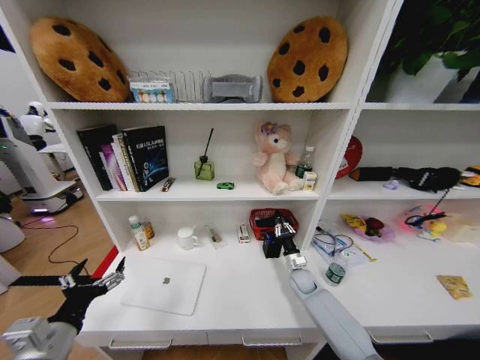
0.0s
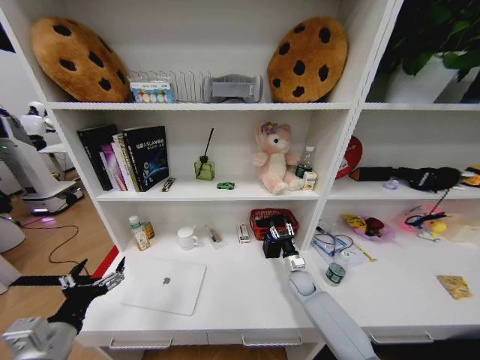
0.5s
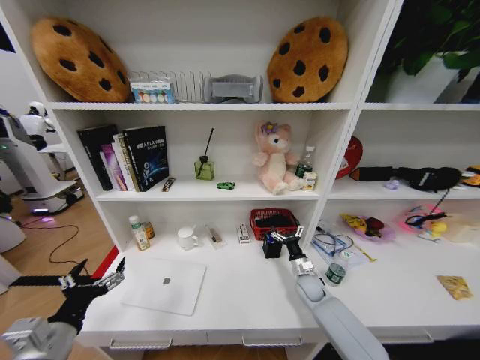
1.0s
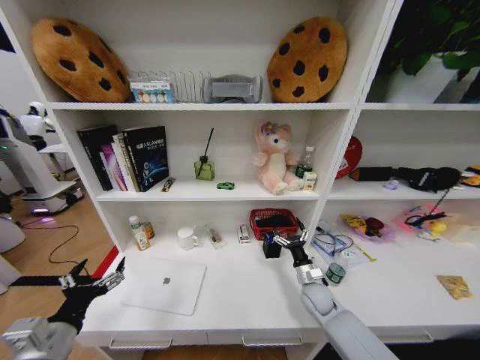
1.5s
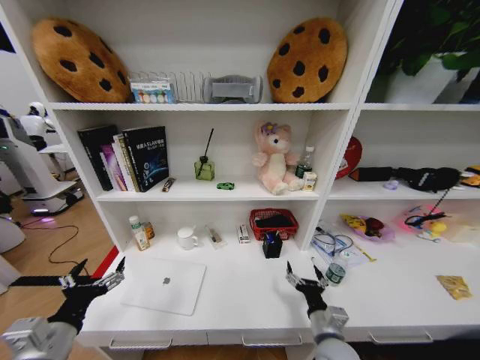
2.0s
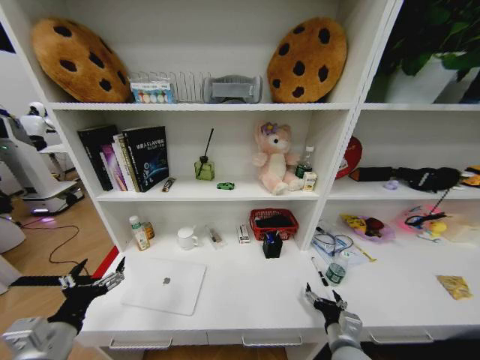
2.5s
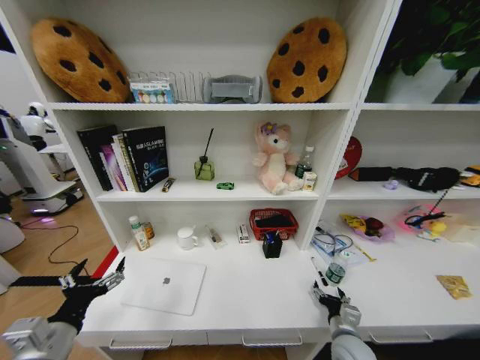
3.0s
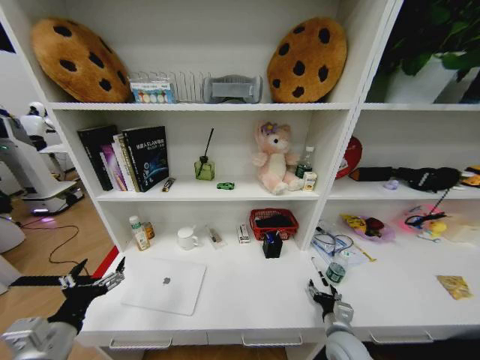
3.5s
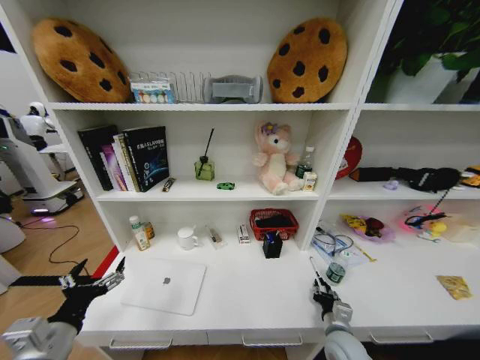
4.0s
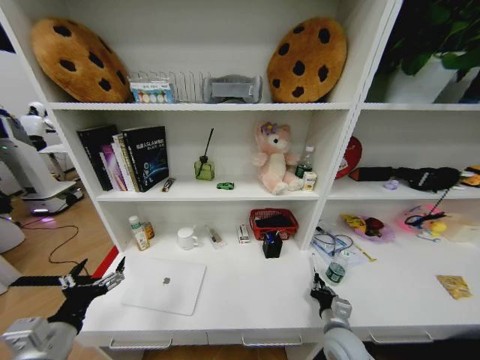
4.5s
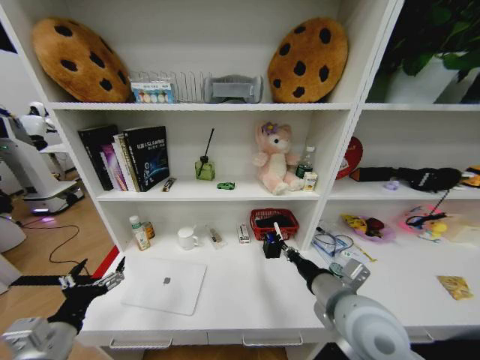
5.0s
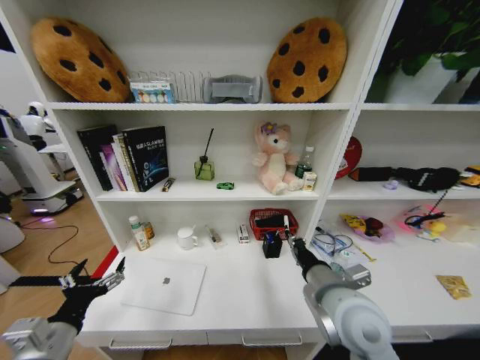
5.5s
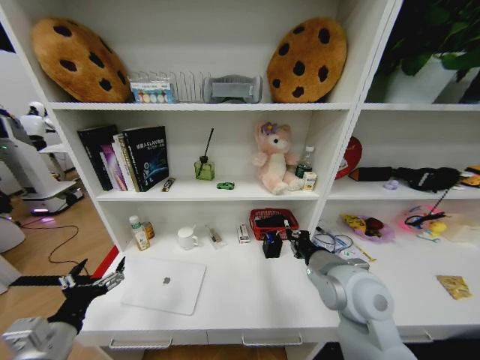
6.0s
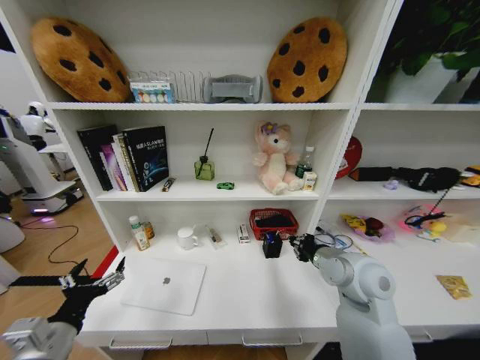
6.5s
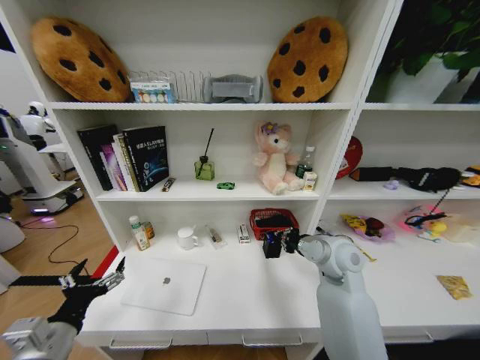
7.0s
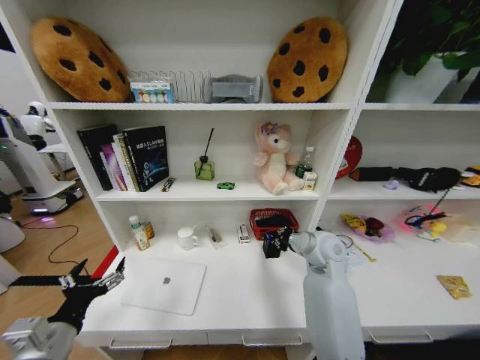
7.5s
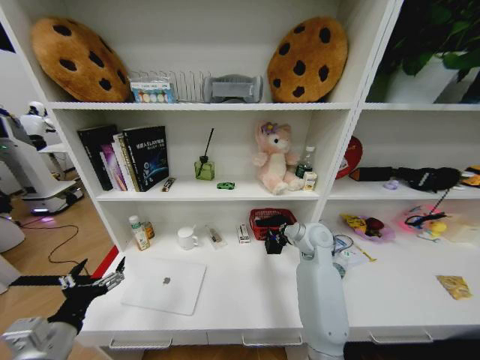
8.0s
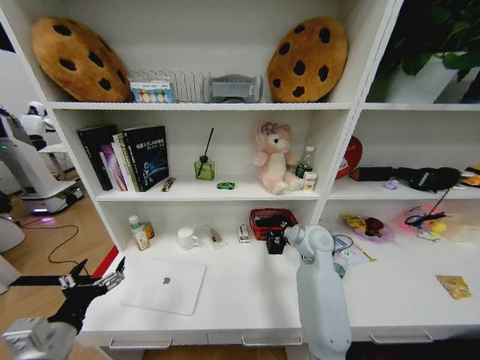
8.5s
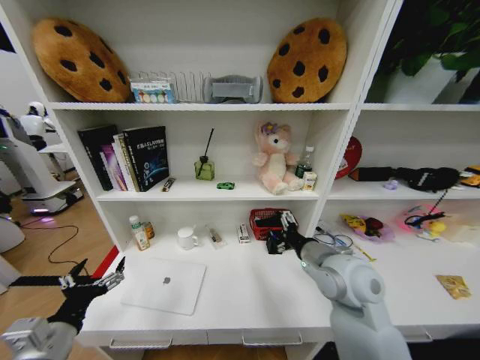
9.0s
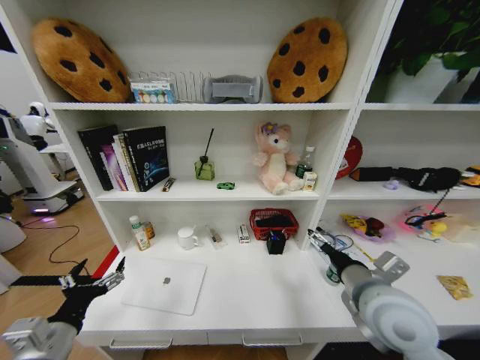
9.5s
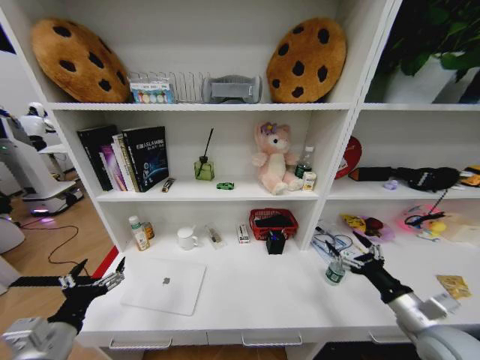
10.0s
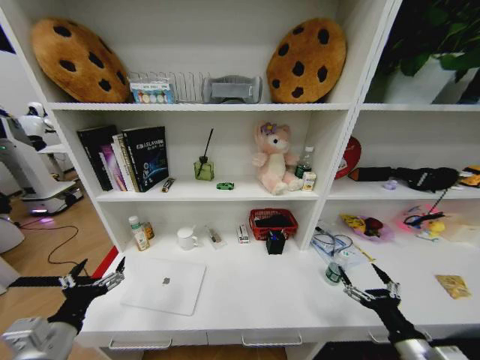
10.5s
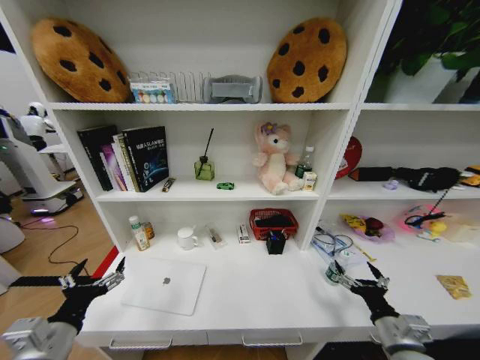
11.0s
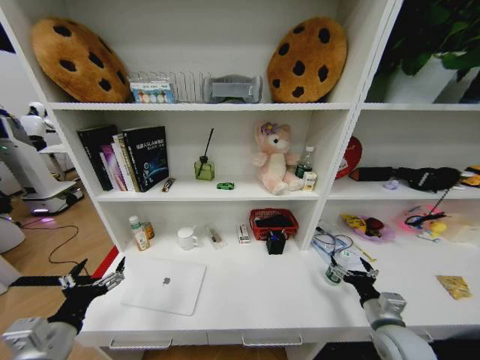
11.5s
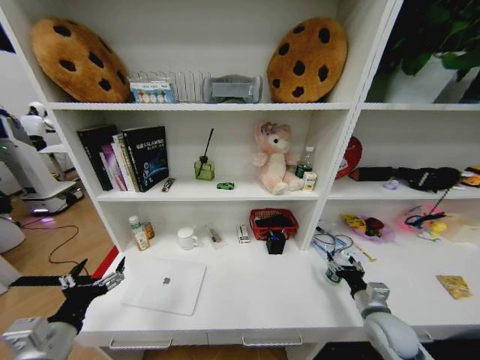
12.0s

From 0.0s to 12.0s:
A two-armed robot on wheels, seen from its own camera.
Task of the whole recording: Organize the objects on the table.
From 0.0s to 2.0s: The right gripper goes approximately 25 cm backward, and opens its fingers.
From 2.0s to 4.0s: The right gripper heads to the right and downward, covering approximately 10 cm, and closes its fingers.
From 4.0s to 6.0s: The right gripper shifts about 25 cm upward.
From 6.0s to 8.0s: The right gripper is displaced forward by about 15 cm.
From 8.0s to 10.0s: The right gripper heads backward and to the right, covering about 30 cm, and opens.
From 10.0s to 12.0s: The right gripper moves downward and forward, some 10 cm.

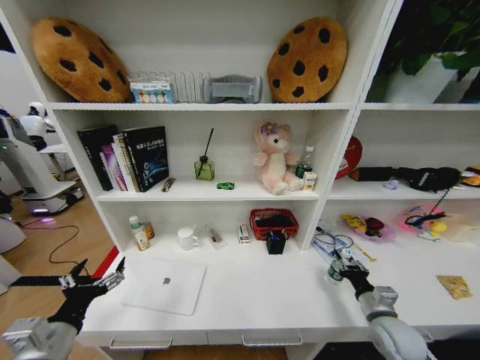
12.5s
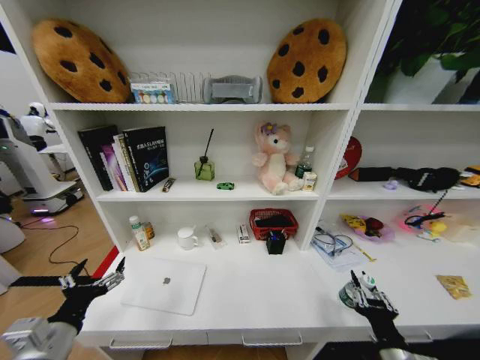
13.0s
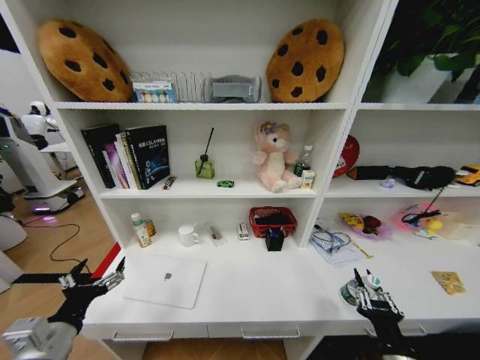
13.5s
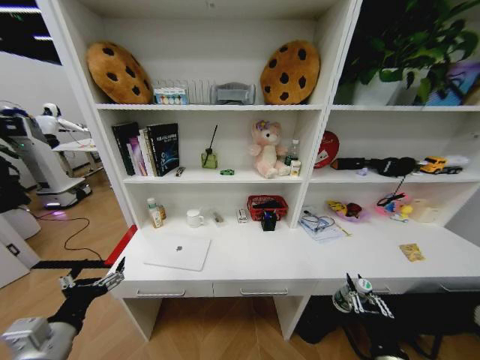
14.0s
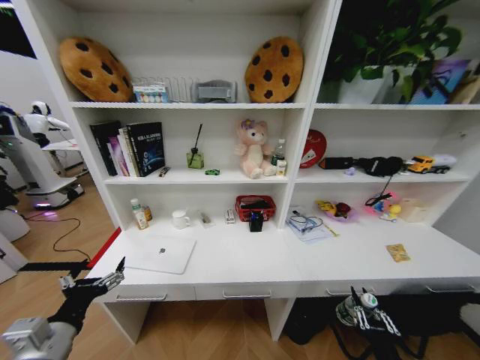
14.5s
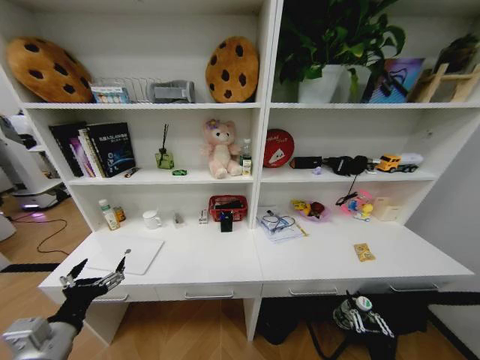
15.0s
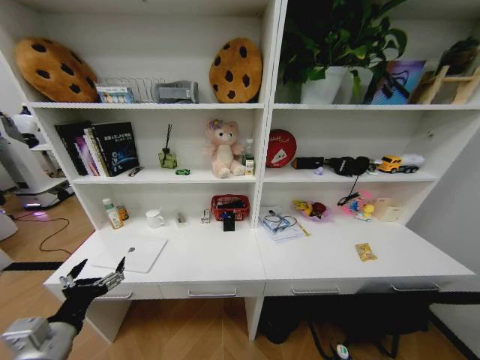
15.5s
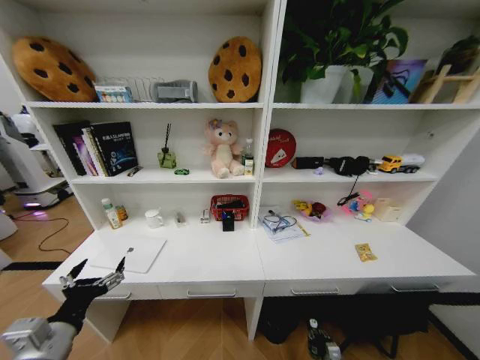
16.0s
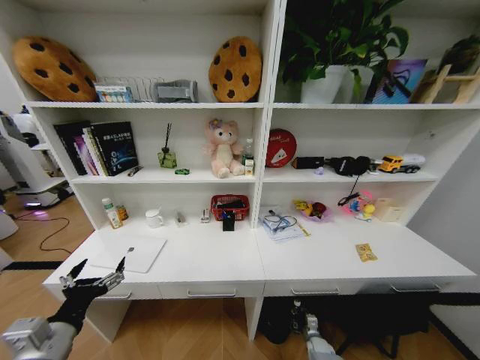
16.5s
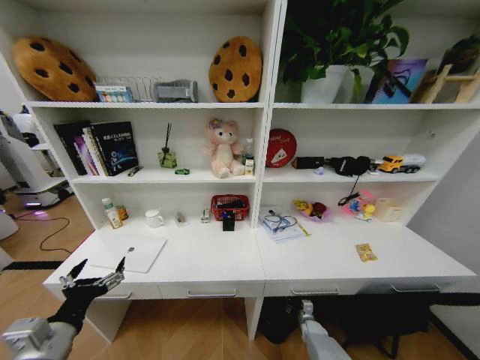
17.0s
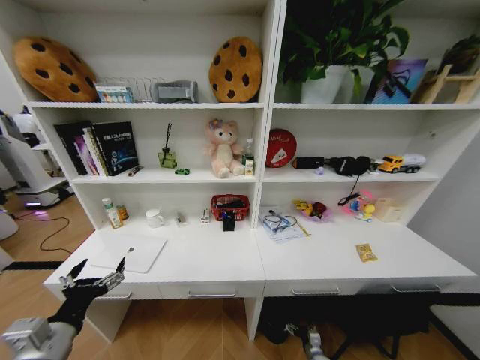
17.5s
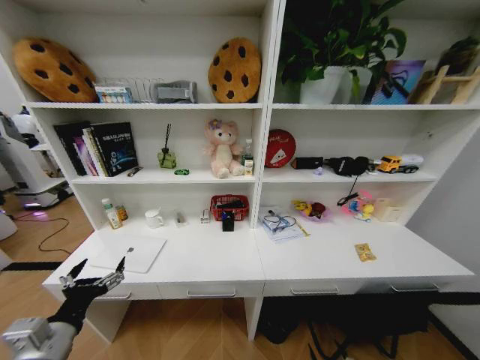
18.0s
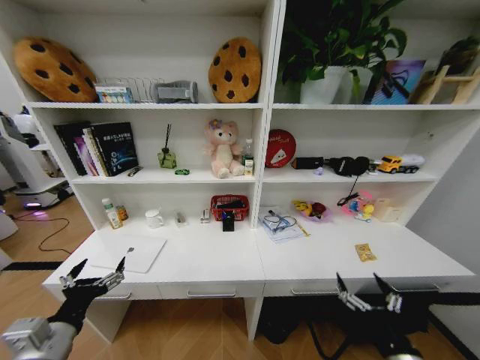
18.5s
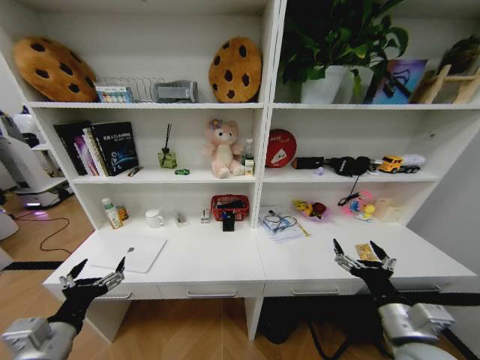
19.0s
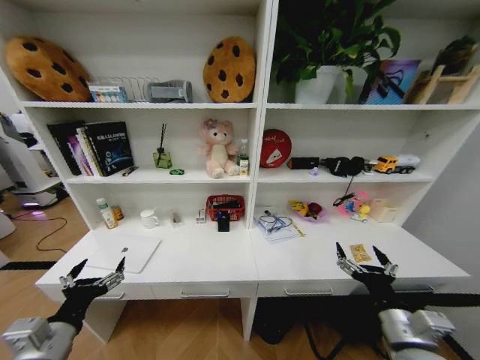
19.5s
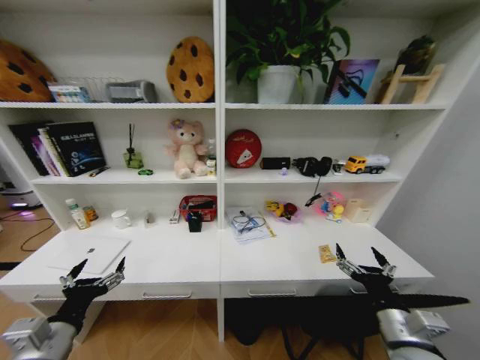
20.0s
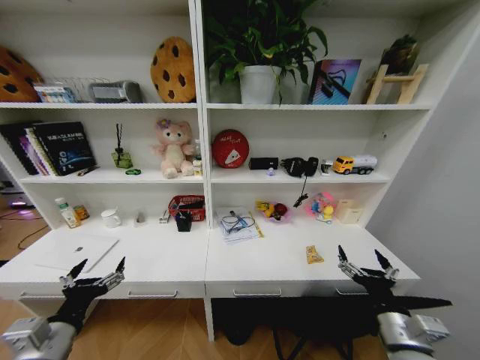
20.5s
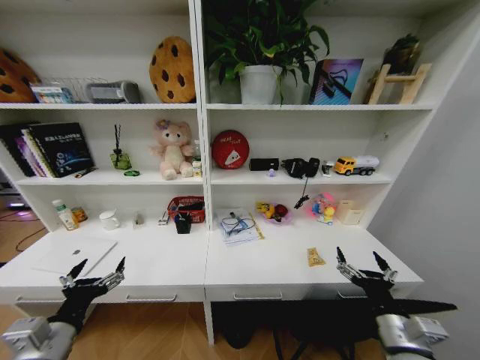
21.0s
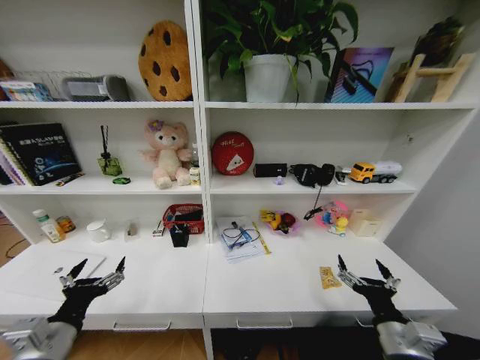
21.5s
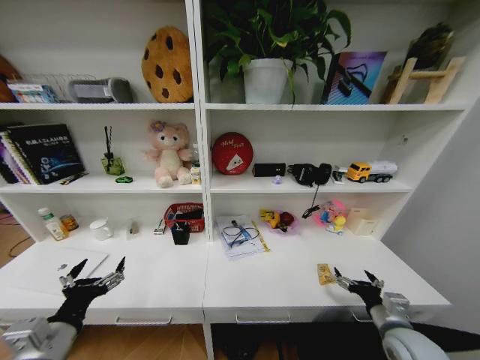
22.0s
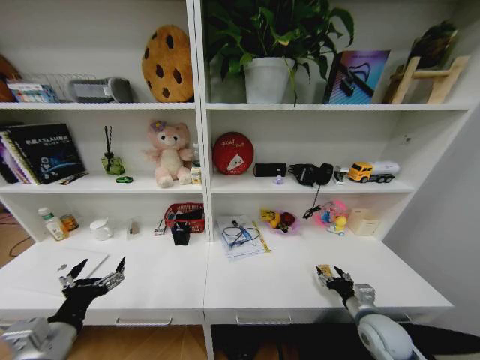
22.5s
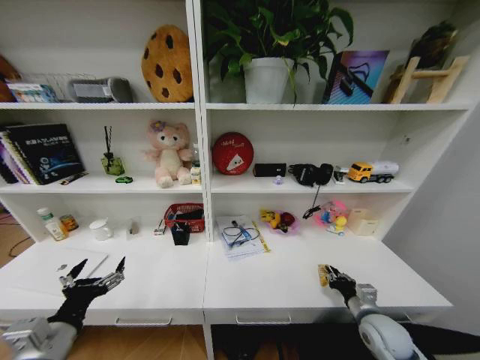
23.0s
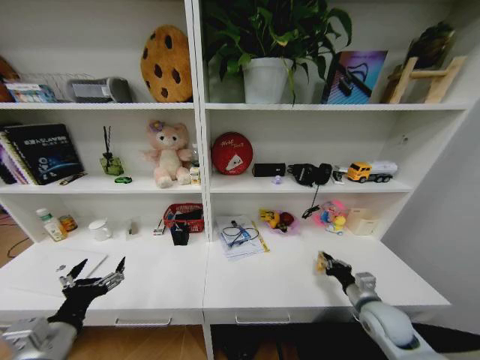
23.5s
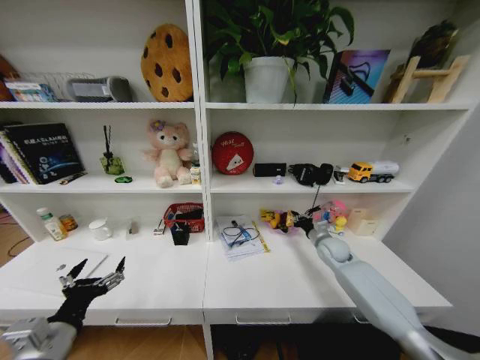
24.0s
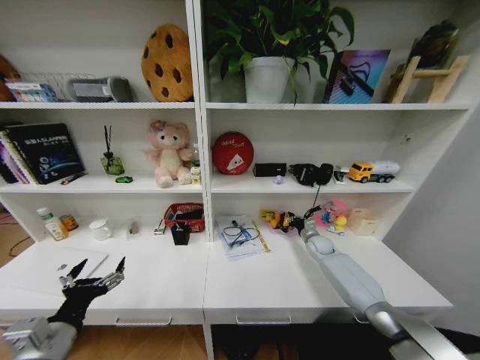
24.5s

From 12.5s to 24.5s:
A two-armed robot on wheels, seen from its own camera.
Task of the whole recording: Organize the objects on the table.
From 12.5s to 14.5s: The right gripper is displaced backward and to the left by about 20 cm.
From 14.5s to 16.5s: The right gripper is displaced downward and forward by roughly 40 cm.
From 16.5s to 18.5s: The right gripper moves upward and backward, roughly 40 cm, and opens its fingers.
From 18.5s to 20.5s: The right gripper travels forward by approximately 5 cm.
From 20.5s to 22.5s: The right gripper goes about 15 cm downward and forward.
From 22.5s to 24.5s: The right gripper is displaced forward by roughly 30 cm, and closes up.

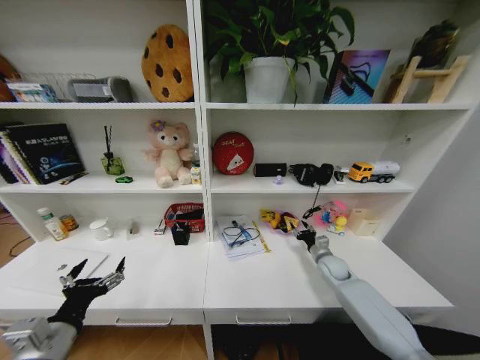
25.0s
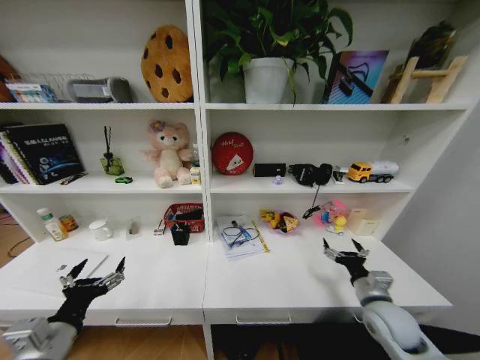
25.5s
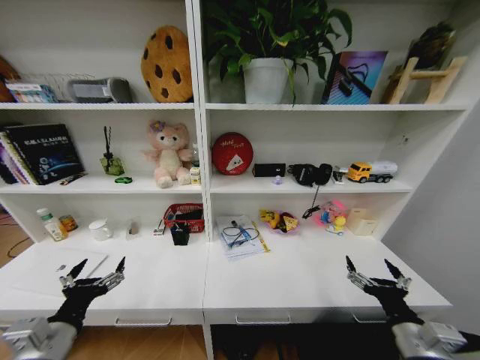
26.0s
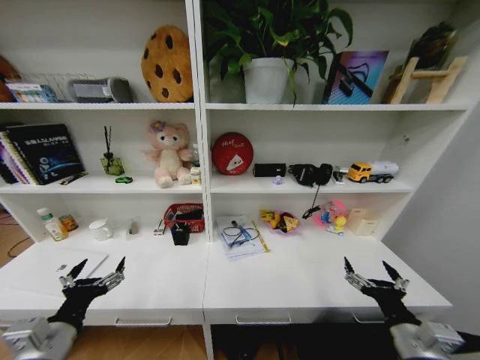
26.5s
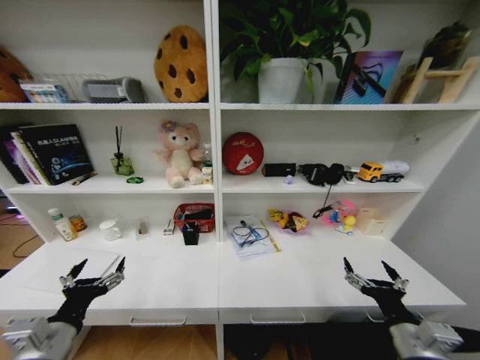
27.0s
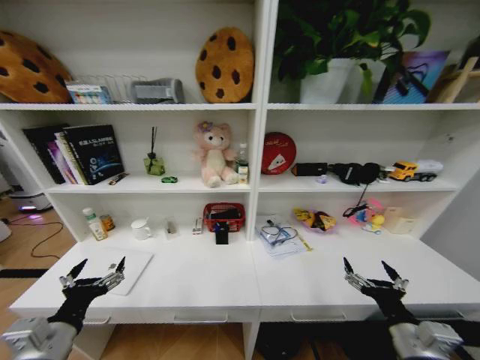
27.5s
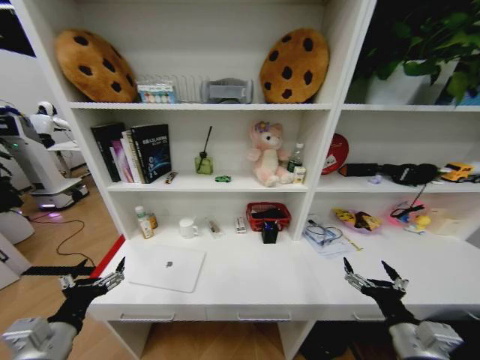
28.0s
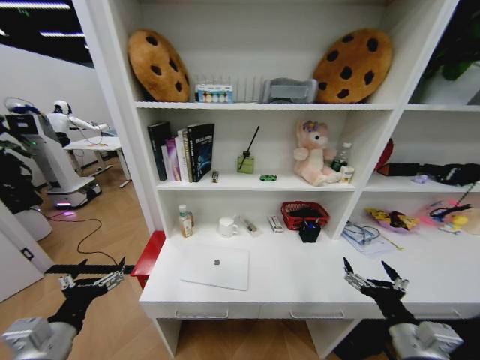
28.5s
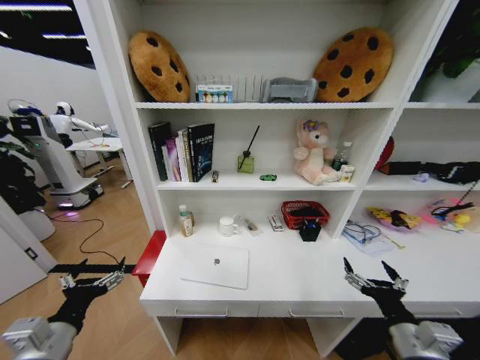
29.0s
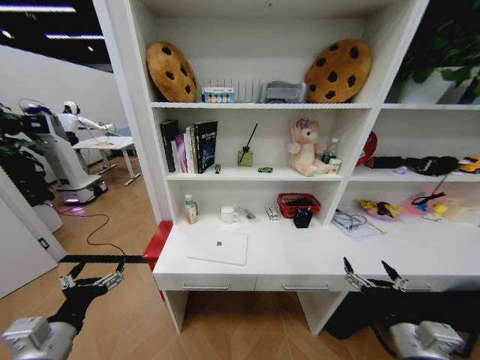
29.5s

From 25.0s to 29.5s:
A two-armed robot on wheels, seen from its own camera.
Task of the whole recording: Organize the objects on the table.
From 25.0s to 27.0s: The right gripper shifts some 30 cm backward, and opens its fingers.
